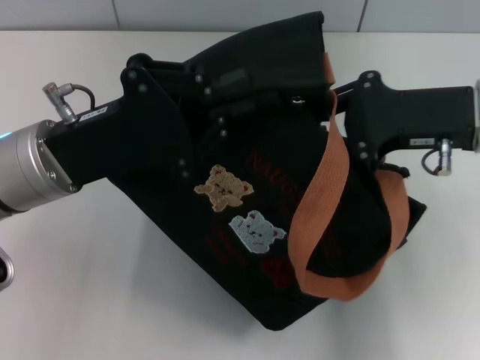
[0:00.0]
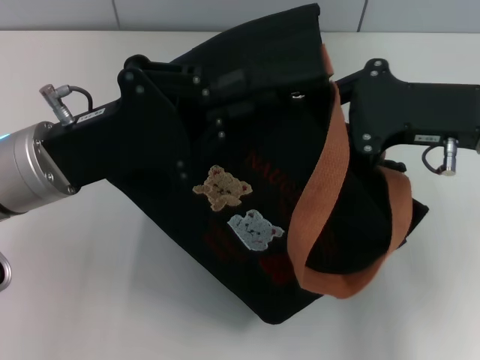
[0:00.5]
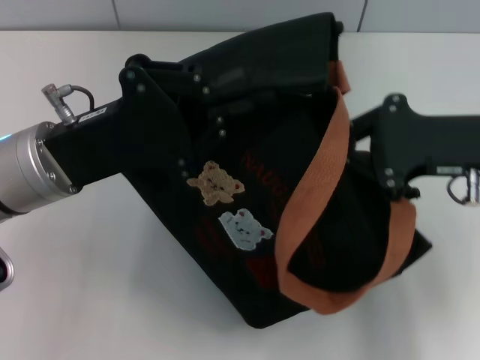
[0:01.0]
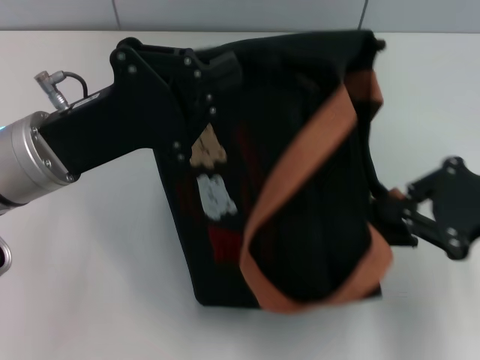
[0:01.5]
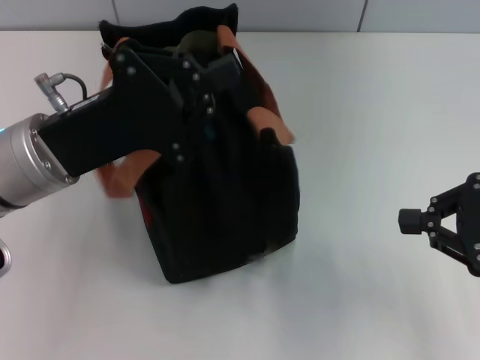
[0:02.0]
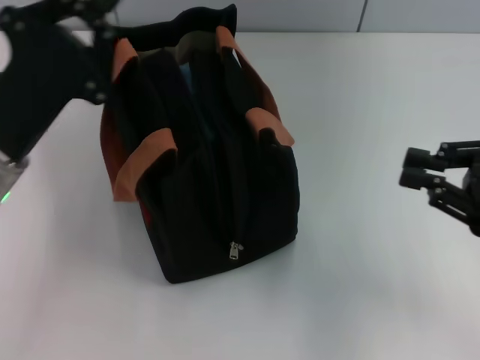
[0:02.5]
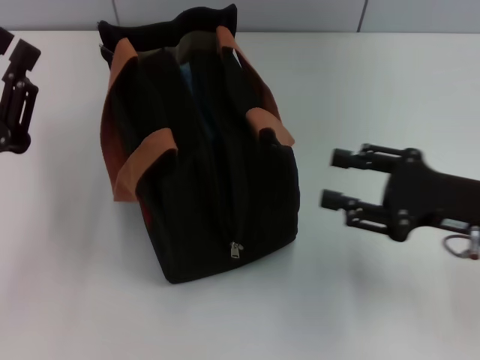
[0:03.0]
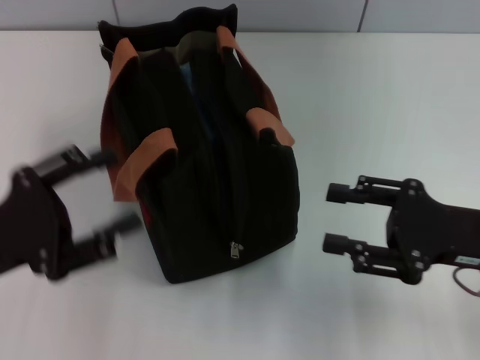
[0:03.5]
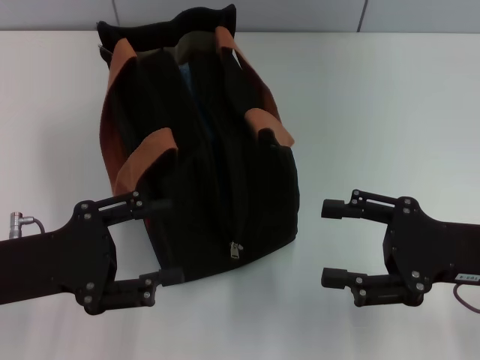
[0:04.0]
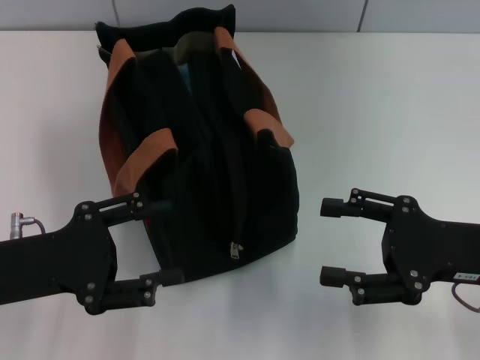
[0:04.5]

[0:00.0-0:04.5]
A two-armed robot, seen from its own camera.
0:00.0 to 0:02.0: The right gripper shifts approximately 10 cm to the right and backward.
0:02.0 to 0:04.5: The left gripper travels backward and to the left by approximately 10 cm, and opens its fingers, while the right gripper moves downward, roughly 5 cm, and opens up.

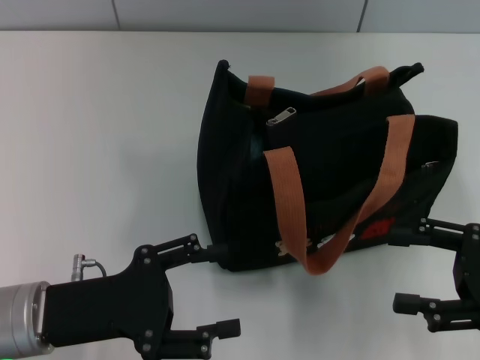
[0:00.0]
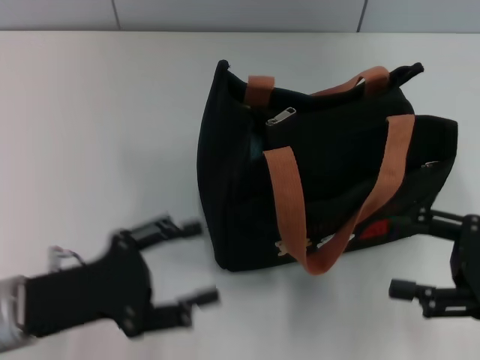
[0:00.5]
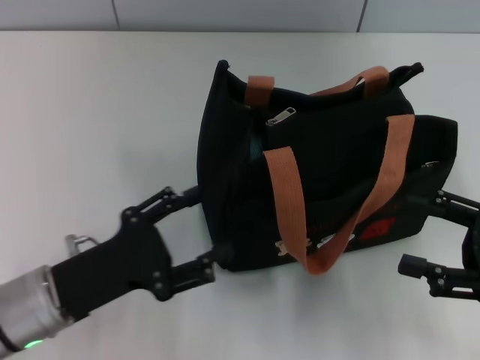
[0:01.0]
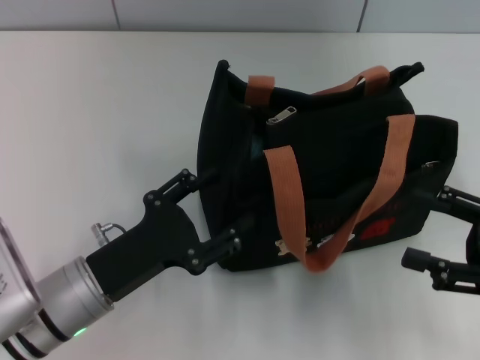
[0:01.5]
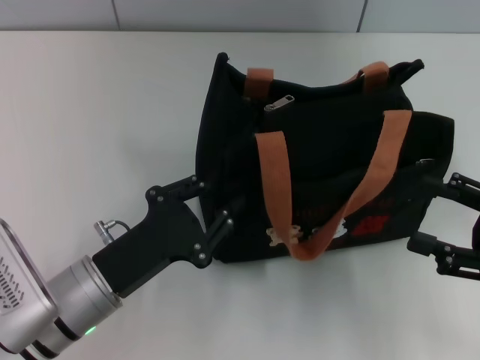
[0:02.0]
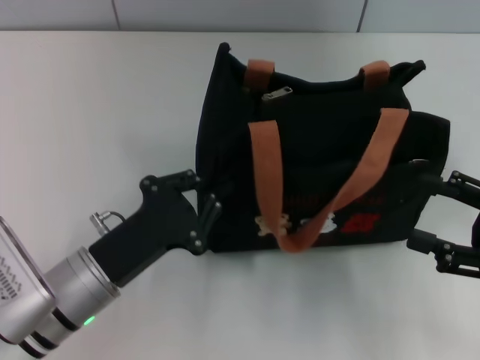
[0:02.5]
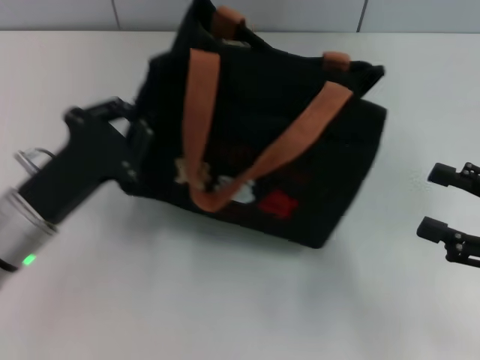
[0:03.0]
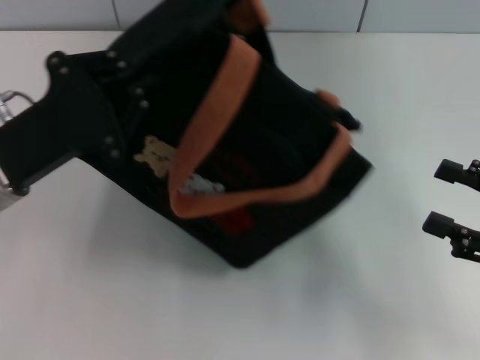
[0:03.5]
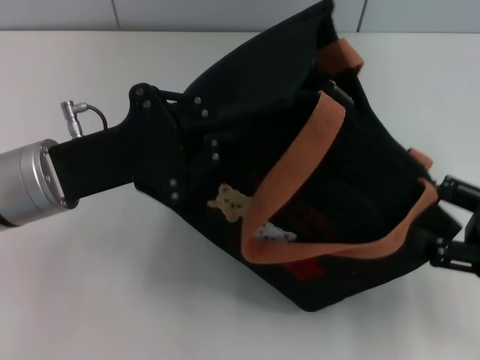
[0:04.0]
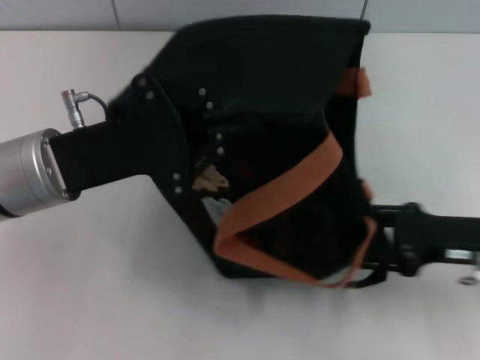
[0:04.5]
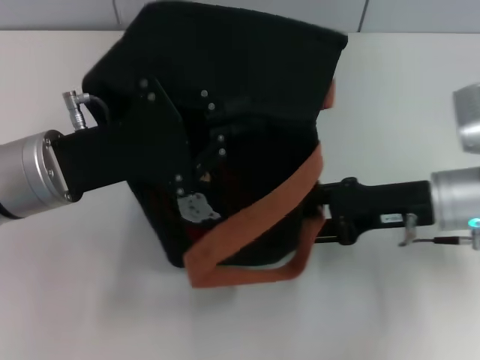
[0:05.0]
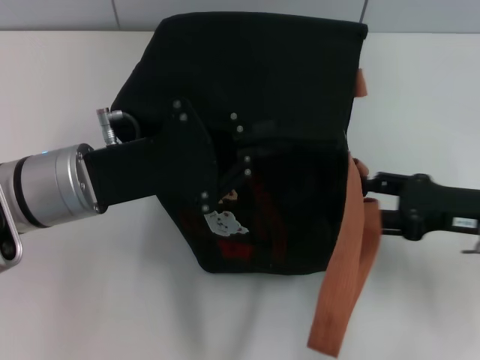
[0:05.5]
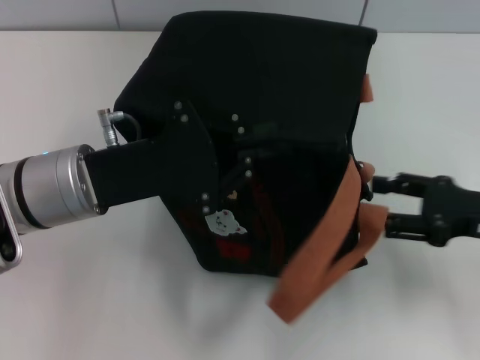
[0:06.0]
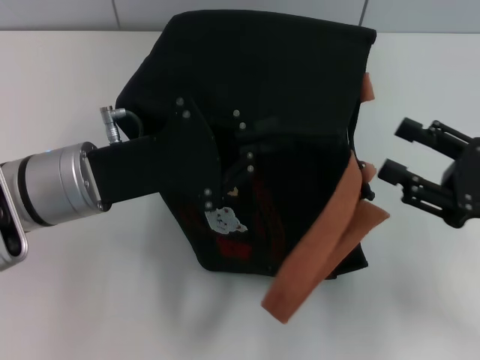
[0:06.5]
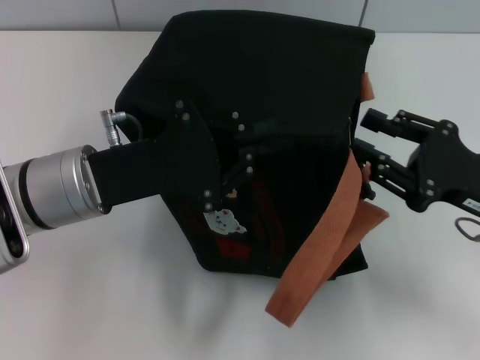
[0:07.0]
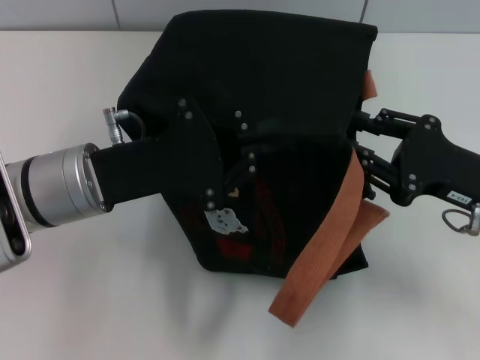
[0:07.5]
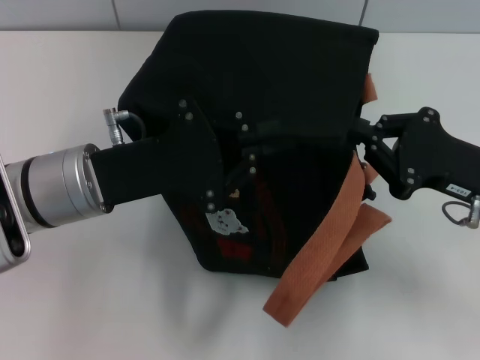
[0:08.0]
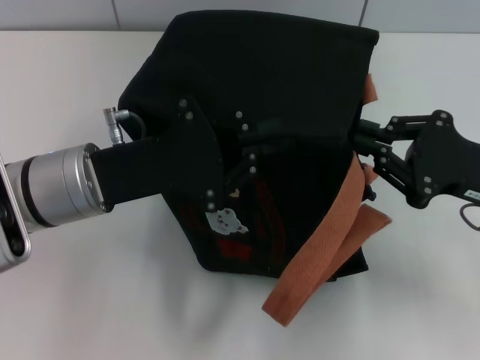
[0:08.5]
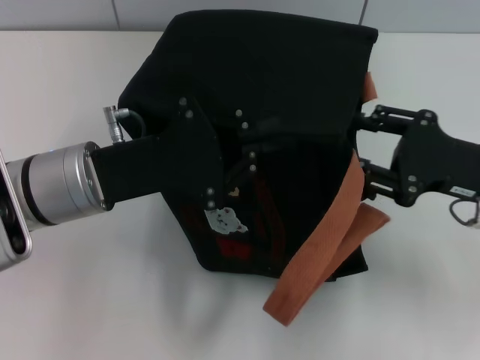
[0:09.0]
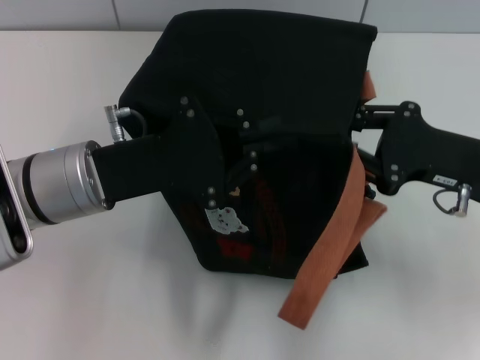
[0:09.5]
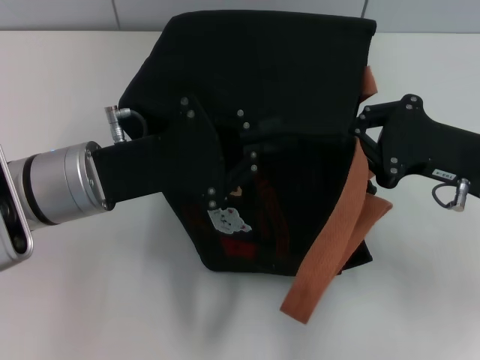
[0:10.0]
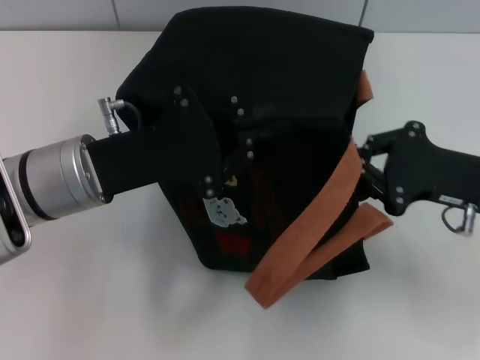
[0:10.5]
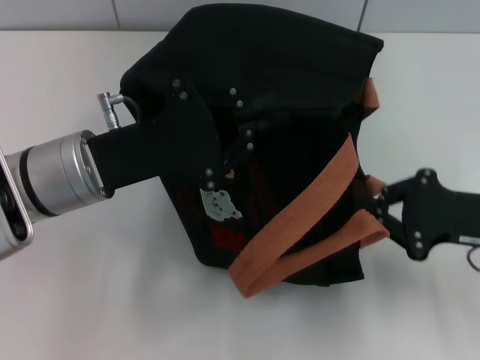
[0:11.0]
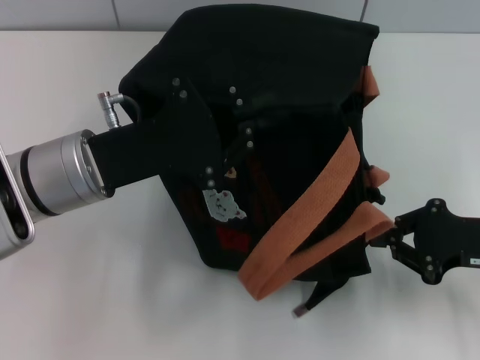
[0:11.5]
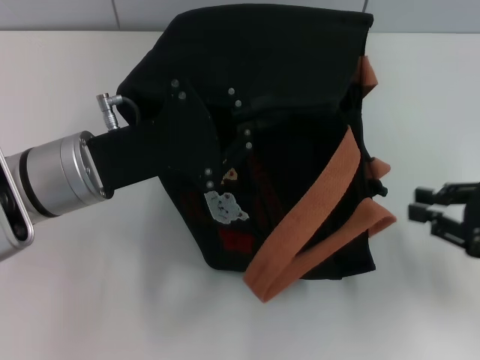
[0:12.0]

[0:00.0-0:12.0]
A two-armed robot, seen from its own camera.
Step, 0:00.0 to 0:11.5: Pull open the zipper with your right hand.
0:00.0 to 0:02.0: The left gripper moves roughly 5 cm, and closes its fingers.
0:02.0 to 0:04.0: The left gripper is displaced upward and forward by roughly 10 cm, and closes up.
0:04.0 to 0:06.0: The right gripper travels forward by approximately 5 cm, and travels to the left and back again, about 10 cm each way.
0:06.0 to 0:08.0: The right gripper closes its fingers.
0:08.0 to 0:10.0: The right gripper opens, then closes again.
0:10.0 to 0:12.0: The right gripper shifts some 10 cm to the right.

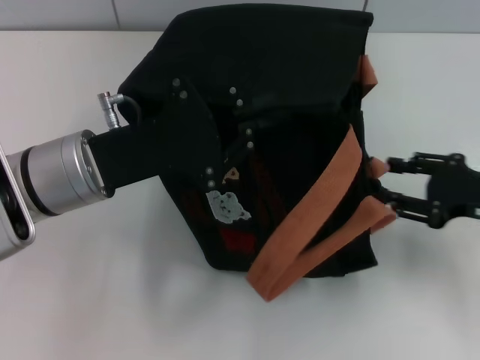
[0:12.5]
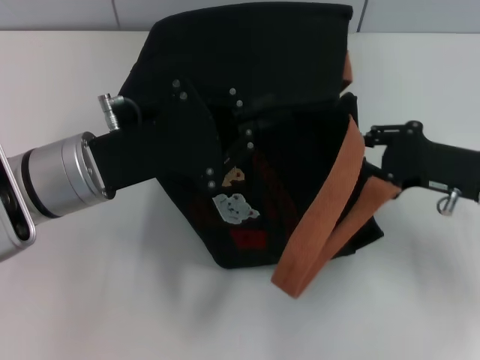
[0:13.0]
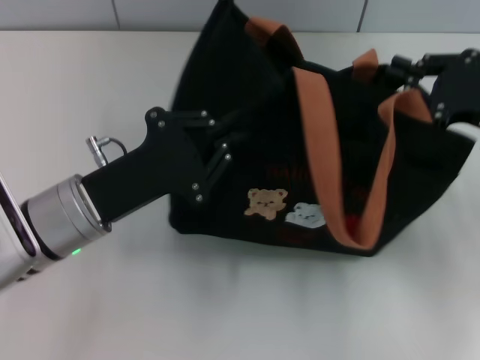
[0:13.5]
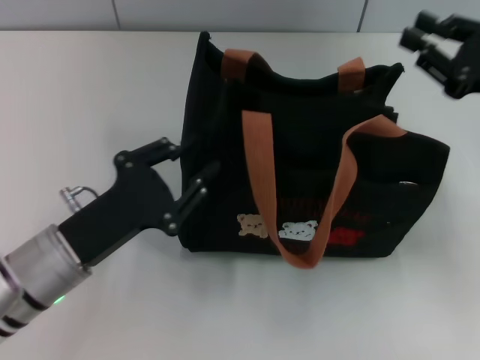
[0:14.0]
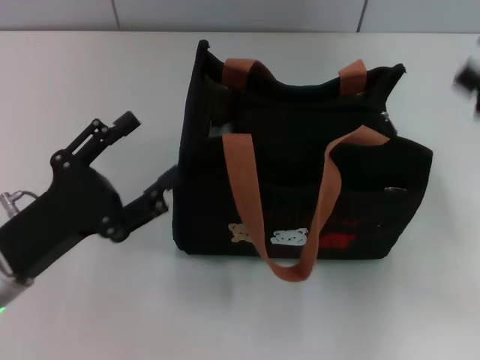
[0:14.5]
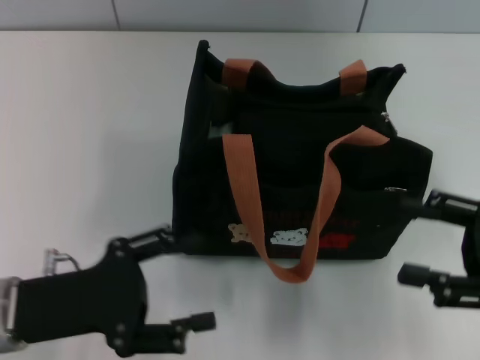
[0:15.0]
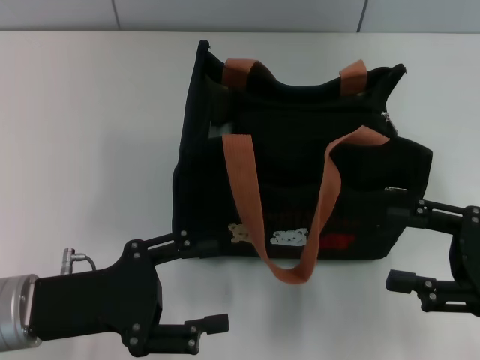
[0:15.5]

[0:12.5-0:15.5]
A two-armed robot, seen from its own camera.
Step, 0:12.5 to 0:14.0: Grab the bag with your left hand.
0:12.5 to 0:14.0: The right gripper is displaced upward by approximately 5 cm, and closes up. Meanwhile the left gripper goes about 10 cm downward and backward.
0:14.0 to 0:15.5: The left gripper opens. The right gripper heads backward, covering approximately 10 cm, and opens up.
